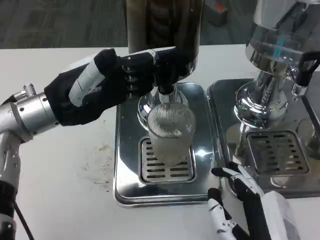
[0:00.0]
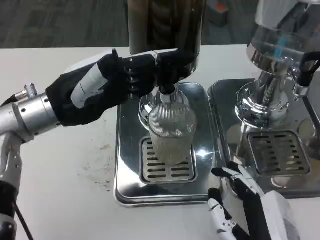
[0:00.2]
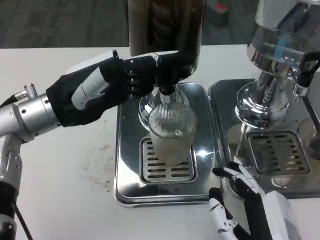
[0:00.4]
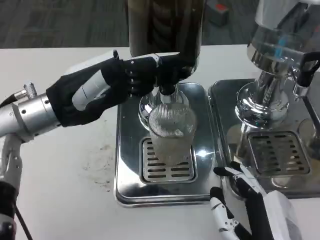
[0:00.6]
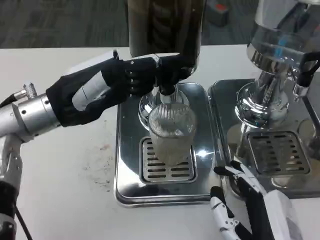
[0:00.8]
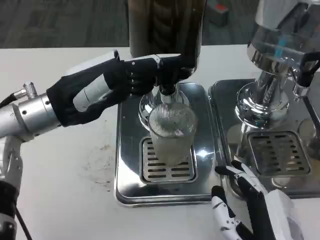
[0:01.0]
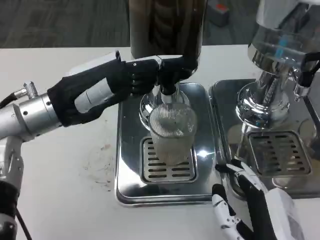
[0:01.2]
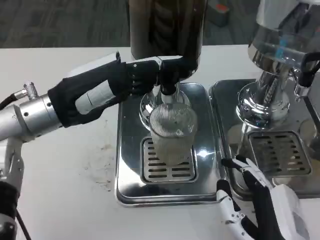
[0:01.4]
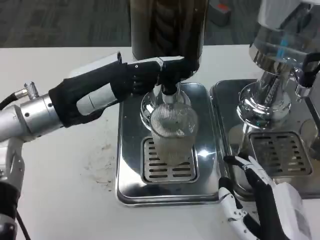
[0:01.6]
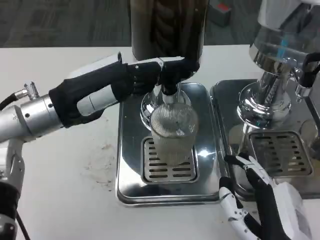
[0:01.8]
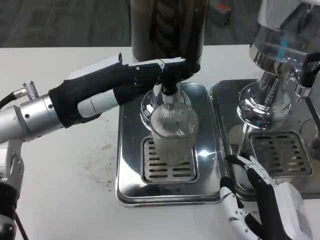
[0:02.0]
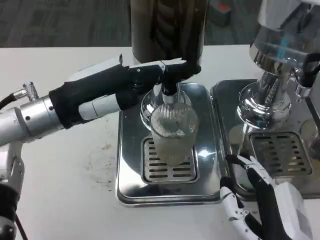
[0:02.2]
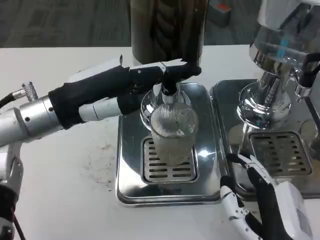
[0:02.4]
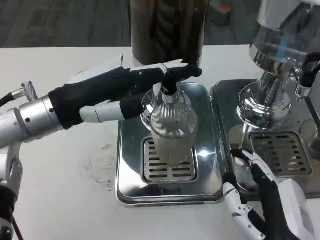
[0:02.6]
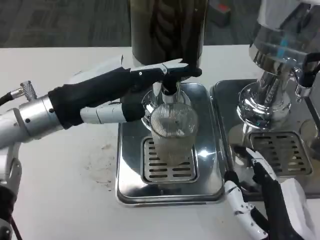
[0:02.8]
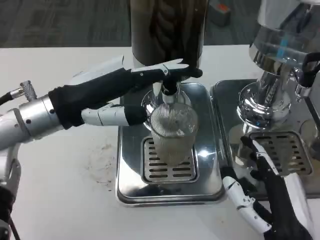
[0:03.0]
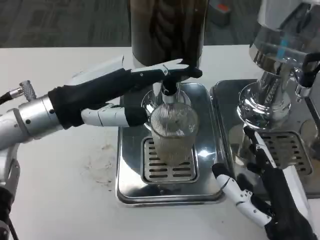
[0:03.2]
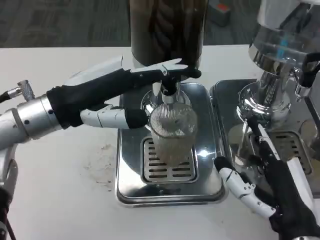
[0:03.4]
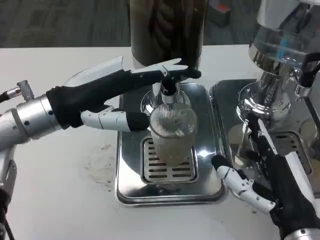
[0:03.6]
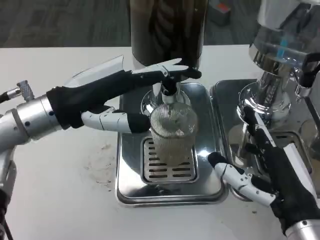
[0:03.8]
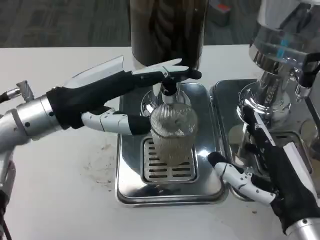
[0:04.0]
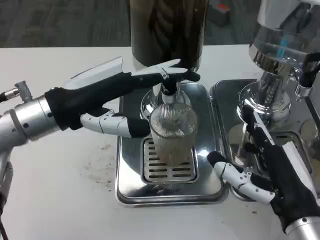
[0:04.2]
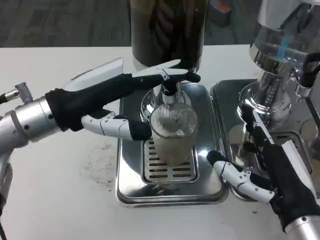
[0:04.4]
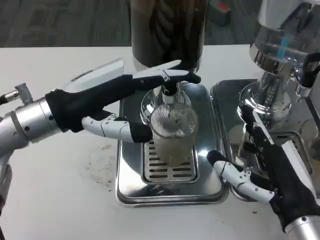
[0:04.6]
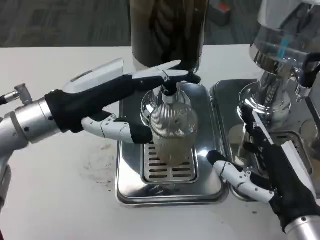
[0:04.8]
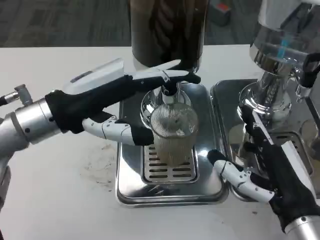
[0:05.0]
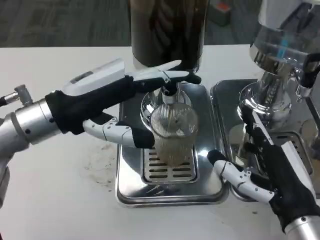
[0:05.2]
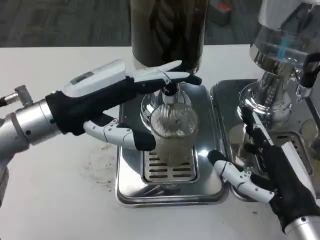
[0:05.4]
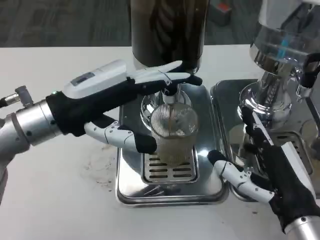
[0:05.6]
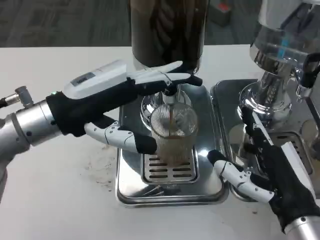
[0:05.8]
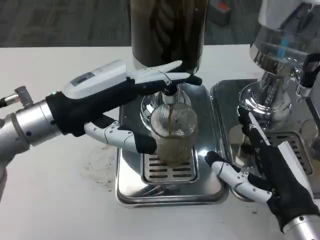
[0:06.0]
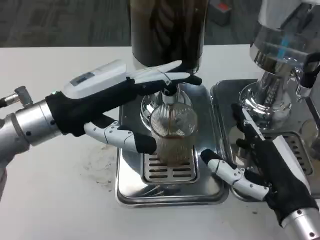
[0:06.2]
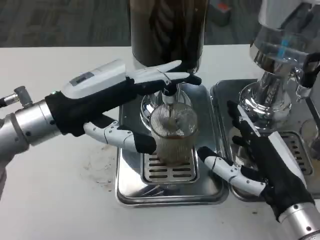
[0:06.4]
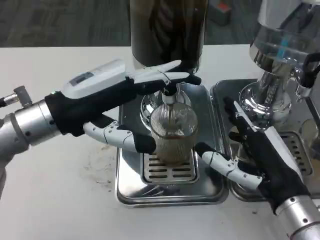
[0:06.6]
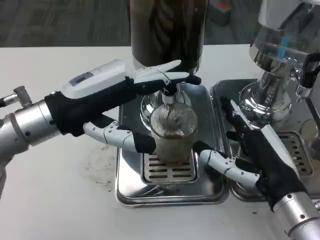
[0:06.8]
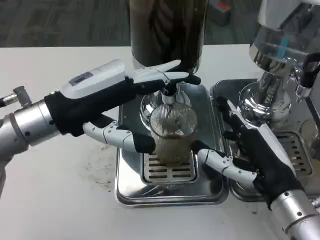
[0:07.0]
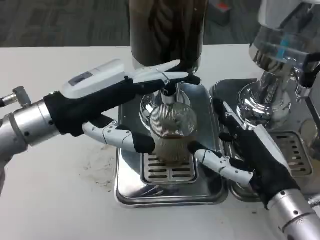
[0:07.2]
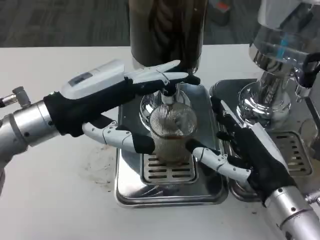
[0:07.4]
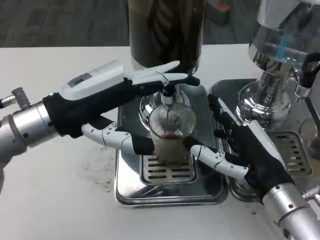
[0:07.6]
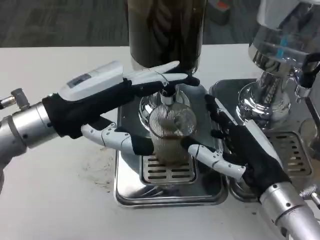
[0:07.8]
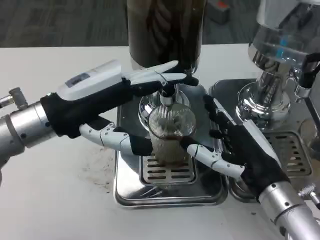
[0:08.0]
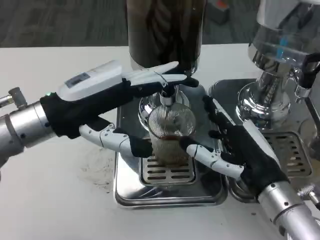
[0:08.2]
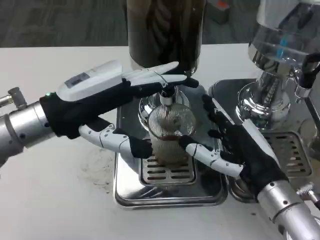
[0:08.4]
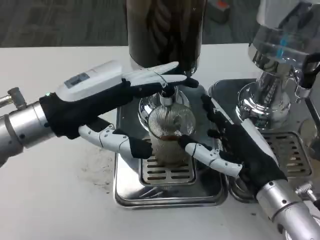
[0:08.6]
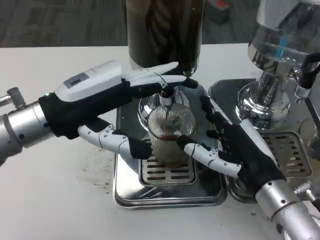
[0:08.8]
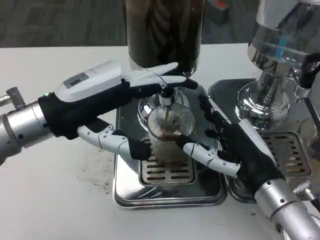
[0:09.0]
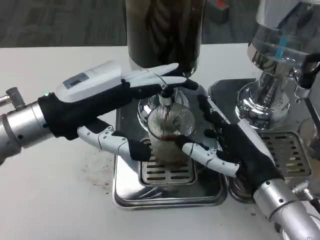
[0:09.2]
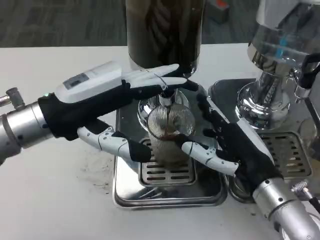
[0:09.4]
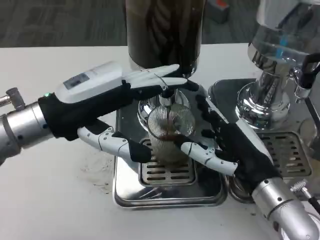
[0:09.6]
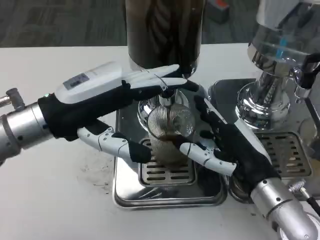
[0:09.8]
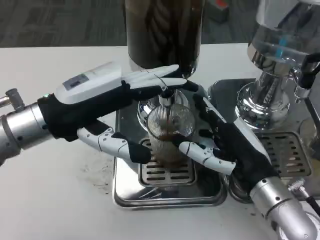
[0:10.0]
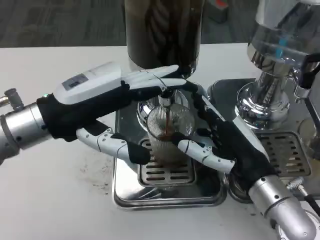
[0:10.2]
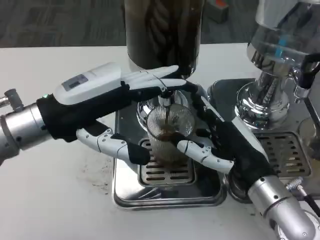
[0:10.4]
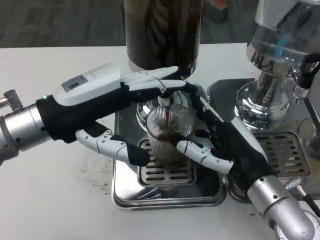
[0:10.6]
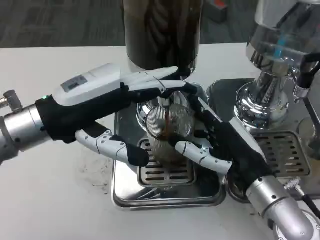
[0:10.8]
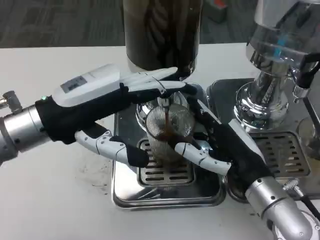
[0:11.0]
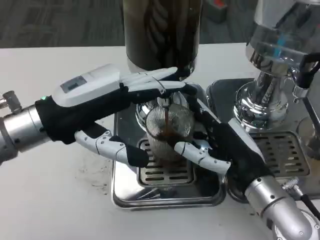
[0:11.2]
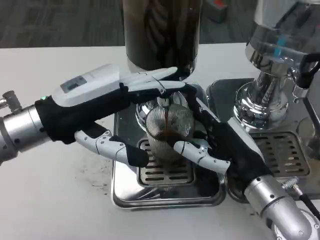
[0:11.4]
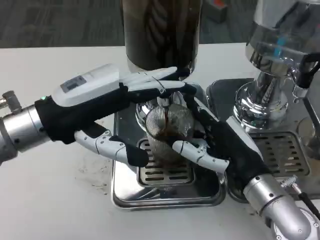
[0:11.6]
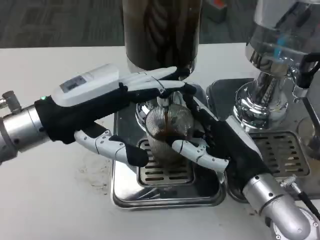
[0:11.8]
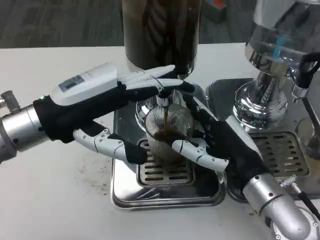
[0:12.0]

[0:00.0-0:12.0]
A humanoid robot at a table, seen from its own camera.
Task of the whole recording: Grasp the cup under the faucet to collect the drink, then remove the cup.
0:01.6 to 0:03.0: The hands stay close to where they were, moving slightly.
0:03.0 to 0:04.4: The right hand ends up approximately 5 cm from where it was.
0:04.4 to 0:07.6: The hands make only small movements.
0:07.6 to 0:09.0: Neither hand changes place.
0:09.0 to 0:10.4: Both hands stay put.
0:10.4 to 0:12.0: The two hands keep their place.

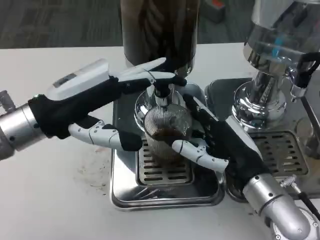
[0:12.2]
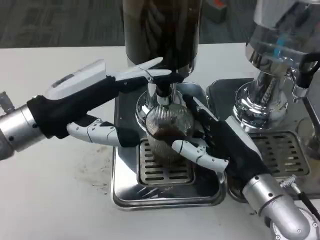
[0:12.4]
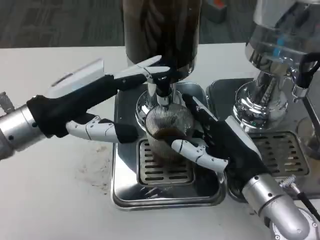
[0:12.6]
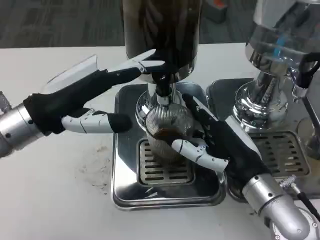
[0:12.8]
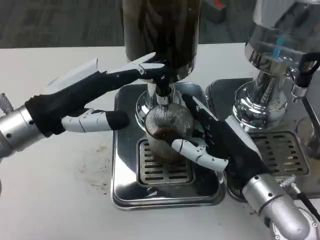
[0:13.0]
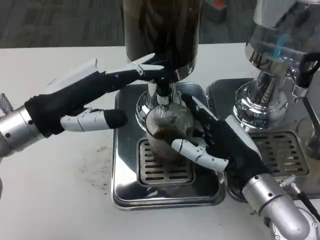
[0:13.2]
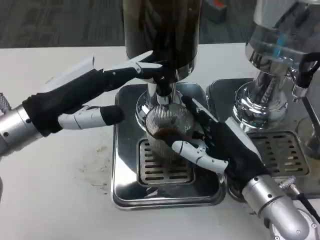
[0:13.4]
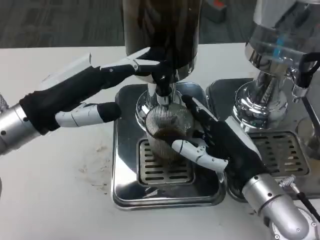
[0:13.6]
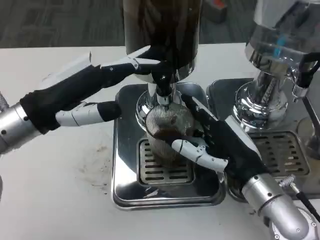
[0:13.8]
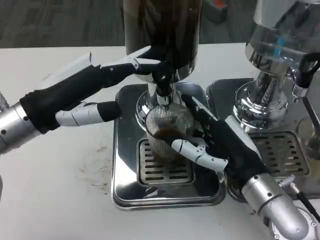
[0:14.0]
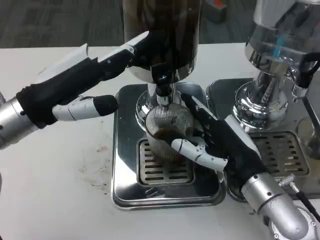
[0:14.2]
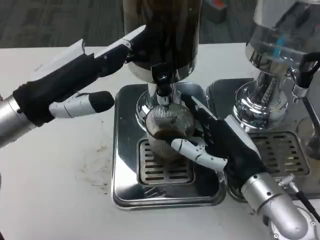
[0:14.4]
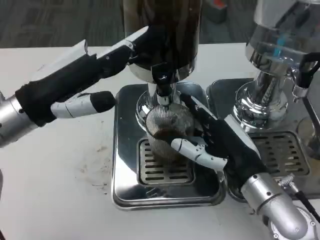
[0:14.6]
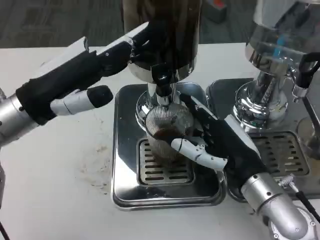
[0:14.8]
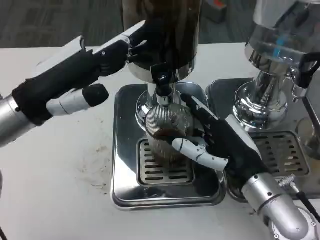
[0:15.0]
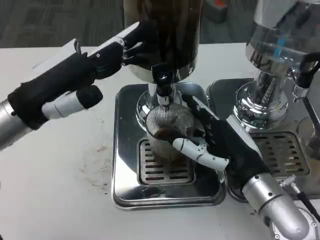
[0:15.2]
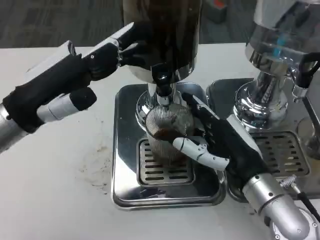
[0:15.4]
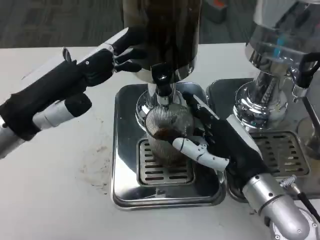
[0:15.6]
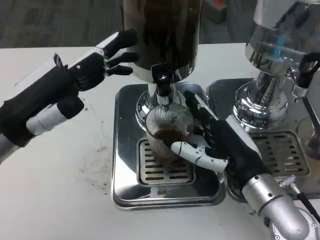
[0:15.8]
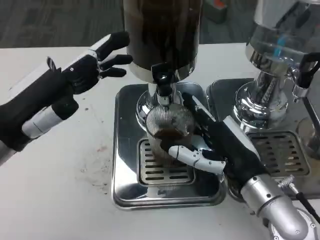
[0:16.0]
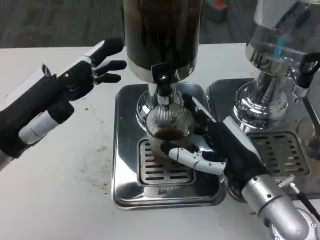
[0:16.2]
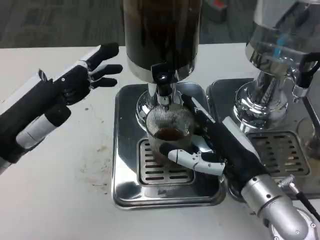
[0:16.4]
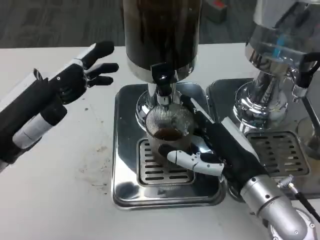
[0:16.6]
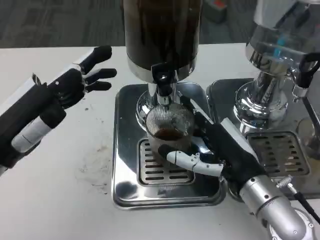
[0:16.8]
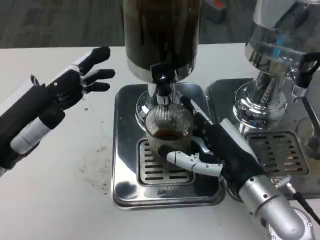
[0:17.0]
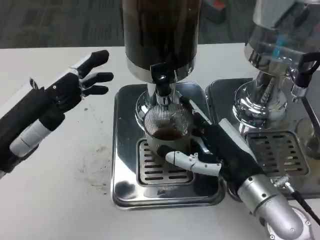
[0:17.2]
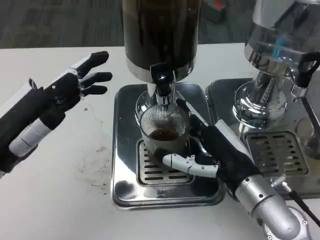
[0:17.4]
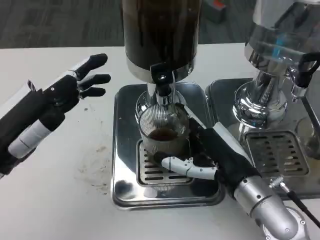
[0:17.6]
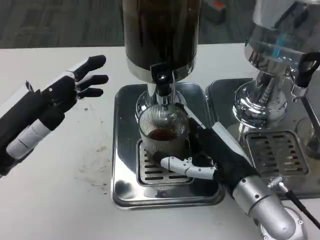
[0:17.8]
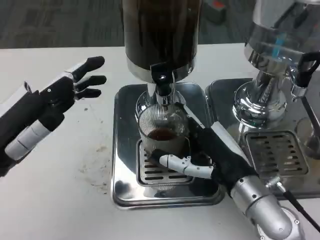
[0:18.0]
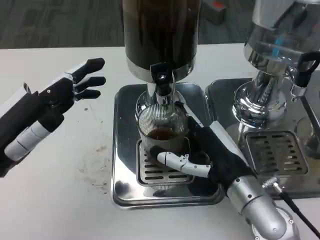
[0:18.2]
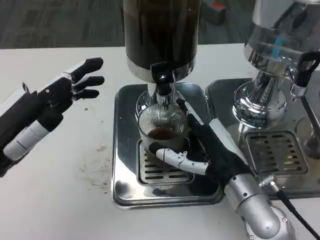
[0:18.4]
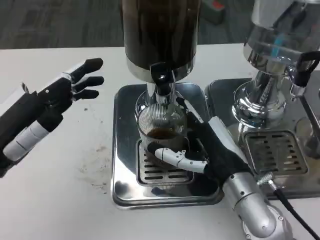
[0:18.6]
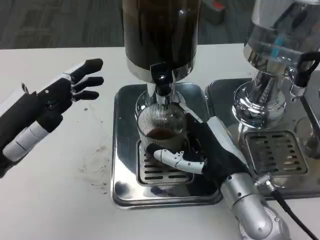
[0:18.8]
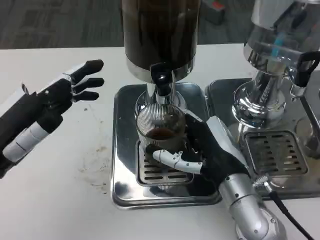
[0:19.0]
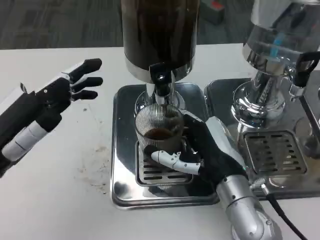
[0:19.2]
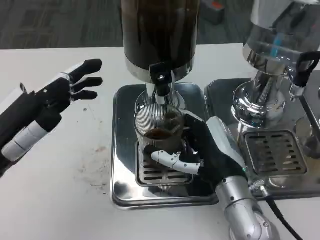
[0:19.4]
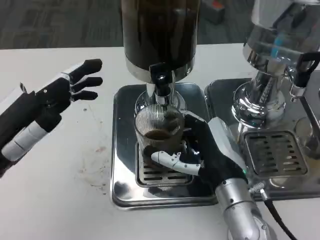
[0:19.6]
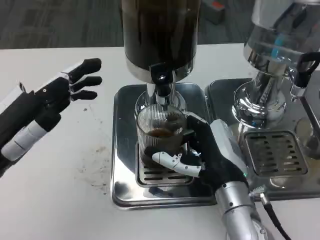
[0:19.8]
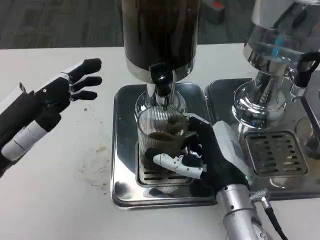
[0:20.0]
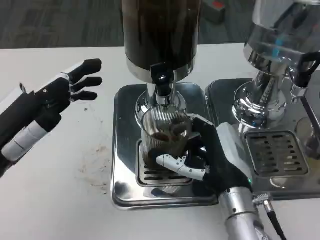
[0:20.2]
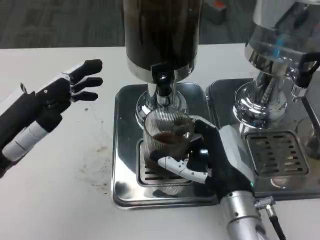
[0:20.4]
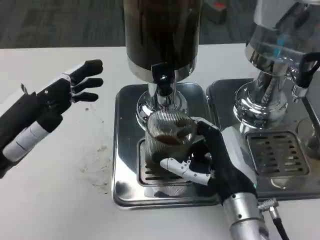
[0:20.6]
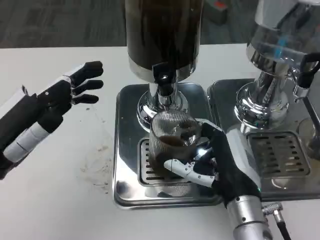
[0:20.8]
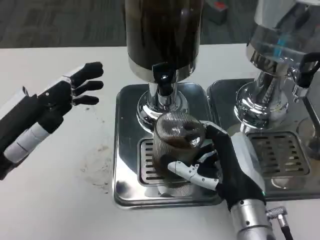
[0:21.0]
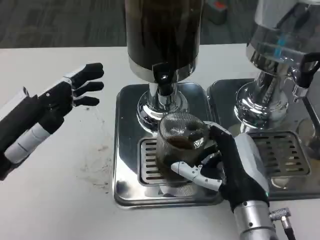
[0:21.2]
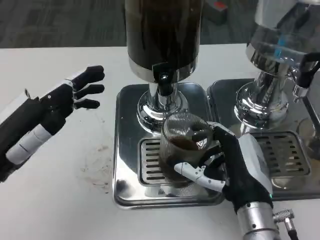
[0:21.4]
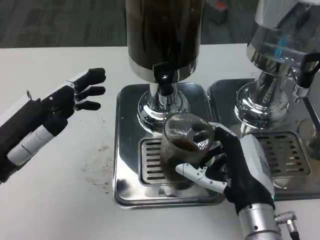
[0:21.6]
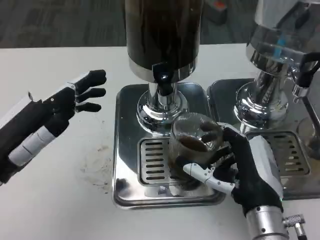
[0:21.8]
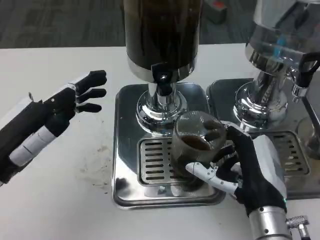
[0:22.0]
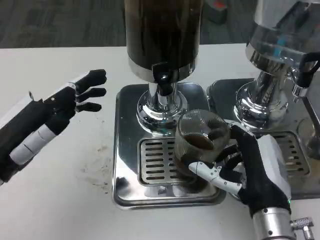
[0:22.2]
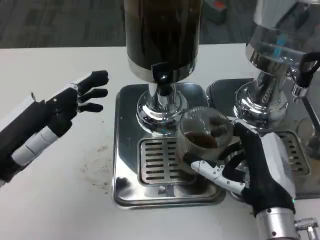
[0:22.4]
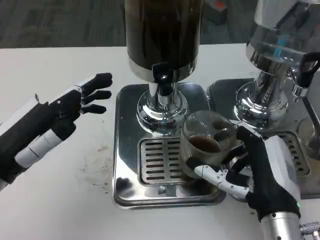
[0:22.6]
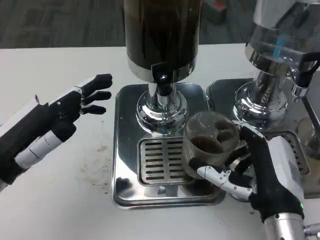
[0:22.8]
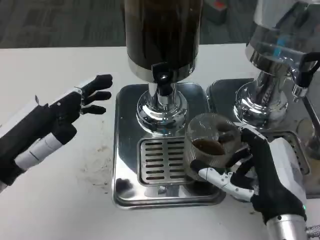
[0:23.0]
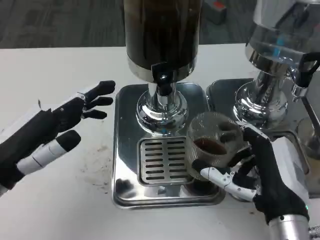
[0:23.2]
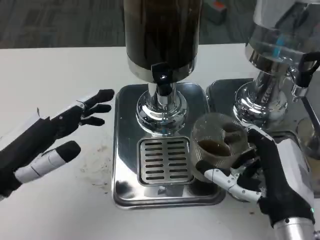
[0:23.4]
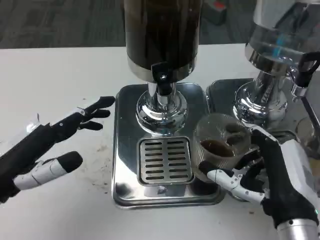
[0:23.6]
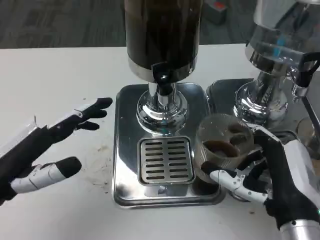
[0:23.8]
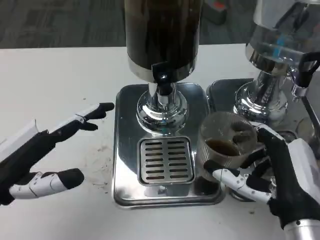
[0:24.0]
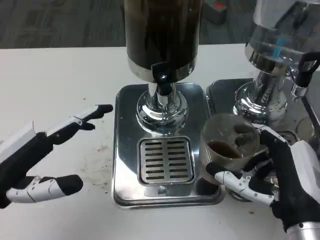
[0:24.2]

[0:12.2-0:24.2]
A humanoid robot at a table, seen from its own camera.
Task of the whole recording: Grasp the cup under the faucet to collect the drink, then remove the cup.
0:12.2 to 0:13.8: The hands stay close to where they were, moving slightly.
0:13.8 to 0:15.2: There are only small adjustments of the hands.
0:15.2 to 0:16.6: The left hand shifts by roughly 5 cm.
0:16.6 to 0:19.8: There are only small adjustments of the hands.
